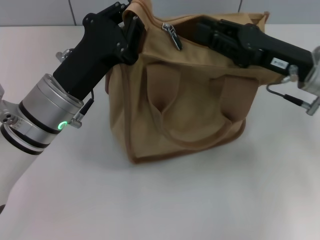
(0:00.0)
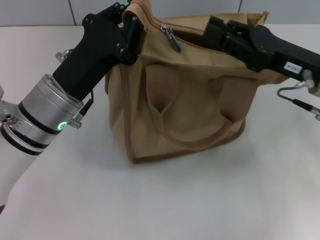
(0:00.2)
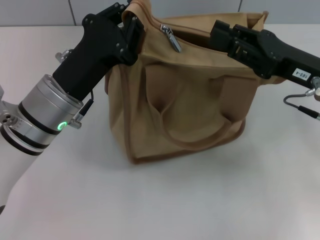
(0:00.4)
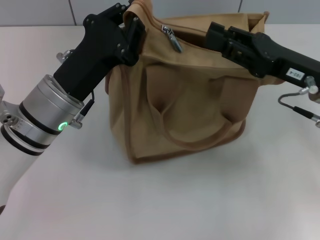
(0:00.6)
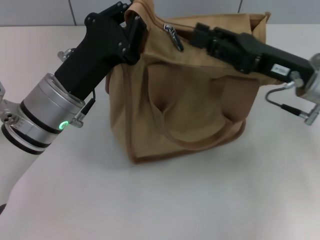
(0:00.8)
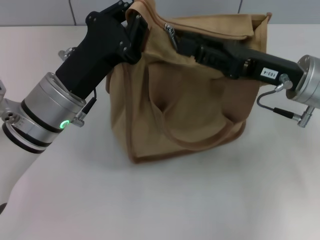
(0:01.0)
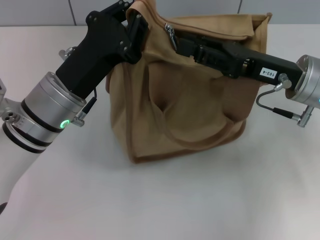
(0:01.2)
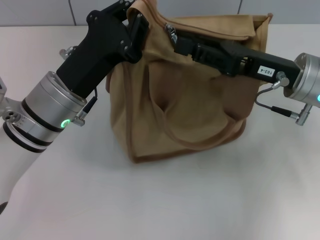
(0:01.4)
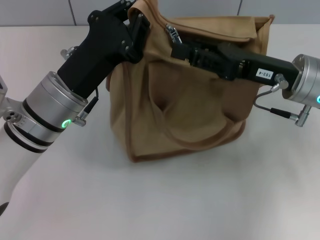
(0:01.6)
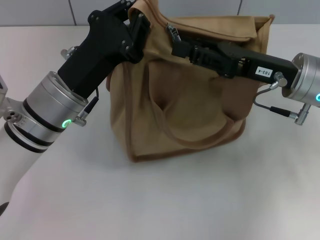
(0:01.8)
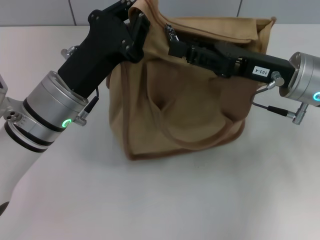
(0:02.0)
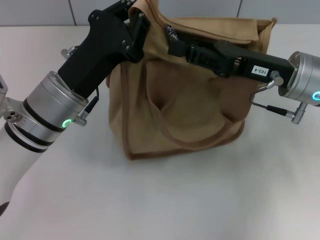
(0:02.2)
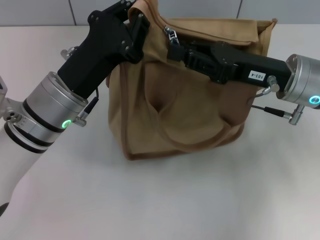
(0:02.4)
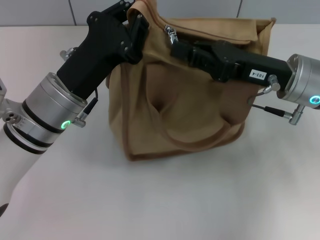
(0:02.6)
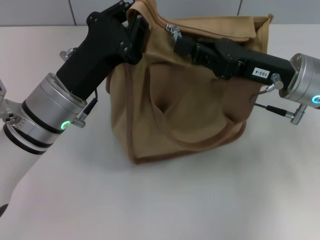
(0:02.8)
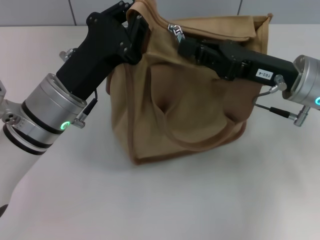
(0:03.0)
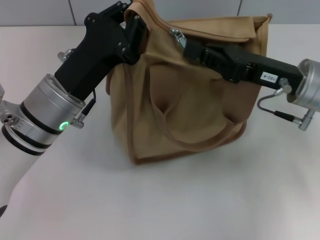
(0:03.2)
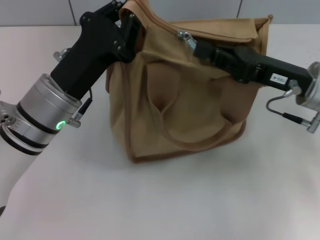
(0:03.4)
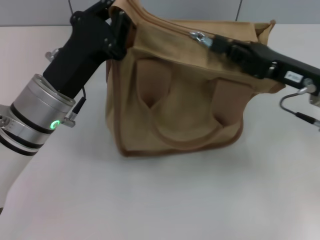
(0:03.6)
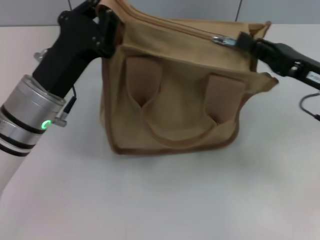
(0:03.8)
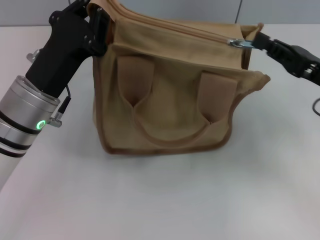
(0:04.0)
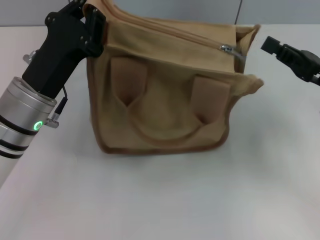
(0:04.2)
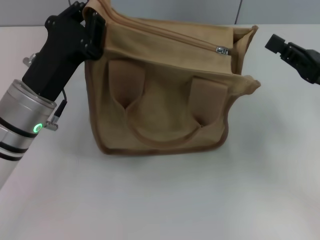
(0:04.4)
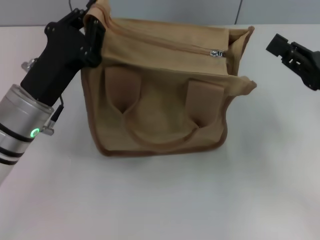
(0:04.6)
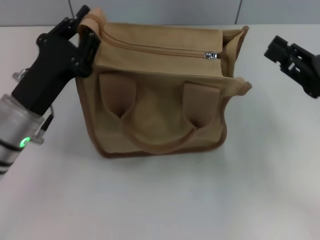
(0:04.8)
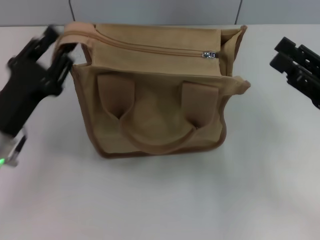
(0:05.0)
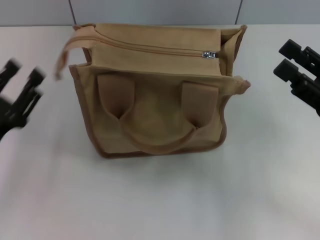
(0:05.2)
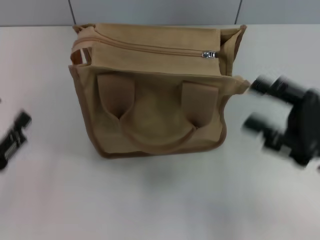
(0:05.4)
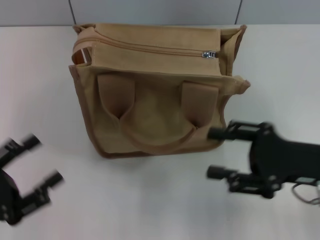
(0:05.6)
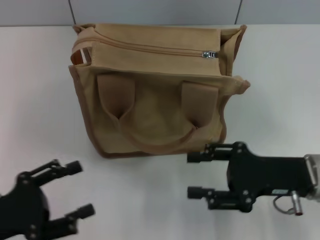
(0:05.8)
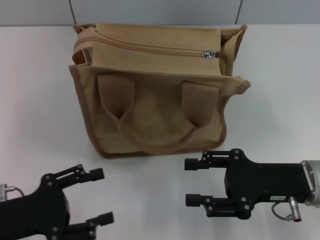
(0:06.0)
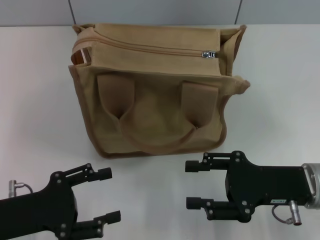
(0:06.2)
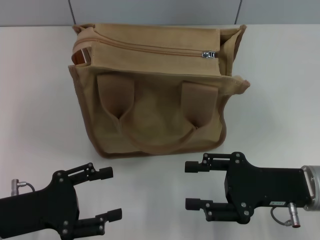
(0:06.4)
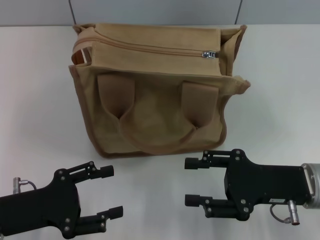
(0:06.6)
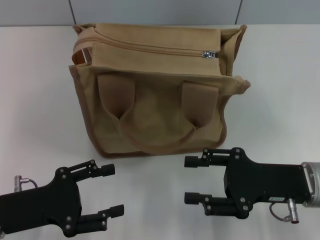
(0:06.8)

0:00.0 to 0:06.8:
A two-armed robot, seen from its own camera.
Step, 0:00.0 to 0:04.2: Pull up the zipper with your right hand.
Step, 0:04.4 to 0:05.0: Grab the zipper with your left hand.
0:00.0 to 0:01.4: There are only small adjustments of the grippers.
0:01.4 to 0:02.8: The right gripper closes its fingers.
0:02.8 to 0:04.0: The right gripper is displaced to the right by about 10 cm.
0:04.0 to 0:05.4: The right gripper heads backward, covering some 5 cm, and opens its fingers, while the left gripper travels to the left, backward and downward by some 20 cm, and opens.
0:05.4 to 0:06.8: The left gripper shifts by about 5 cm. The right gripper moves approximately 5 cm.

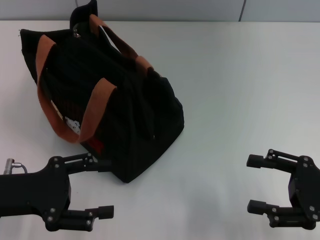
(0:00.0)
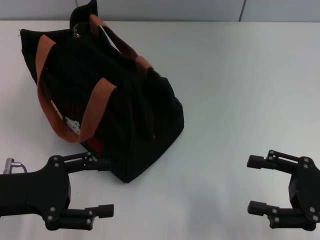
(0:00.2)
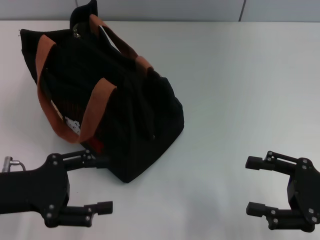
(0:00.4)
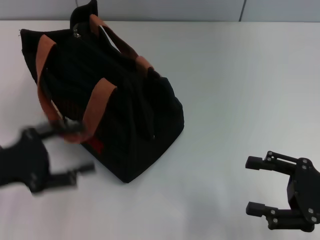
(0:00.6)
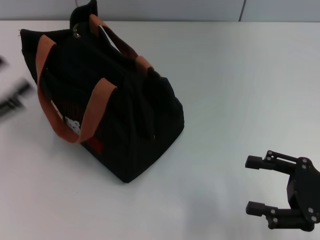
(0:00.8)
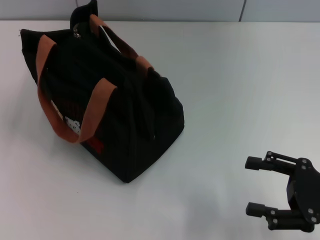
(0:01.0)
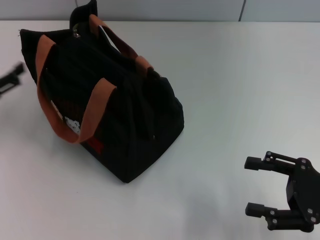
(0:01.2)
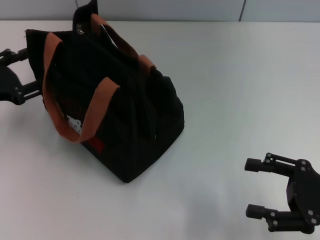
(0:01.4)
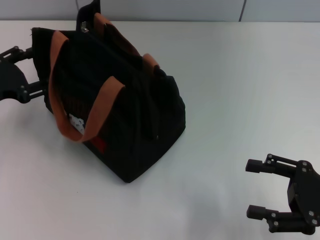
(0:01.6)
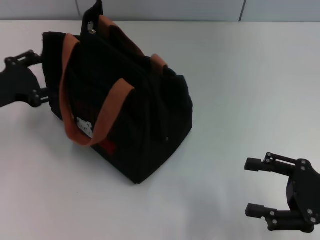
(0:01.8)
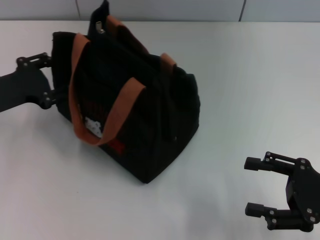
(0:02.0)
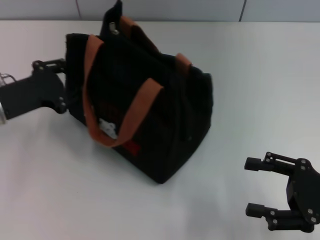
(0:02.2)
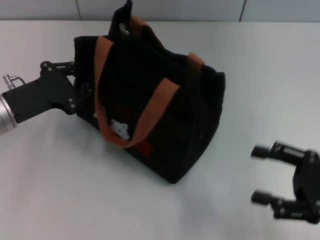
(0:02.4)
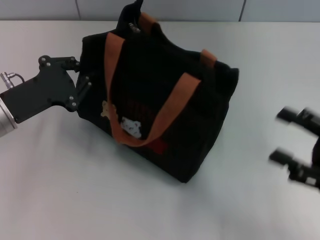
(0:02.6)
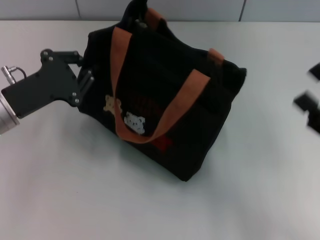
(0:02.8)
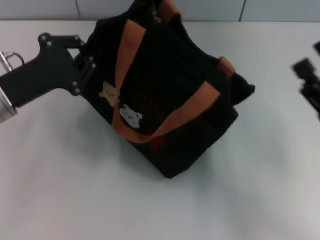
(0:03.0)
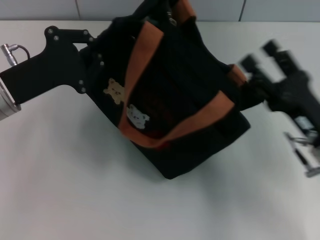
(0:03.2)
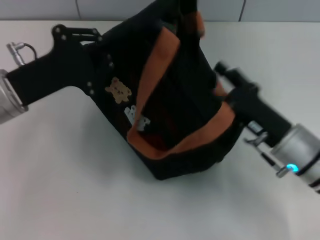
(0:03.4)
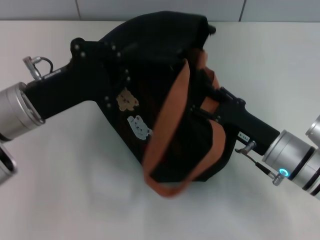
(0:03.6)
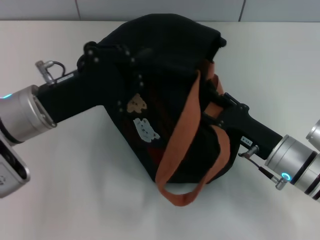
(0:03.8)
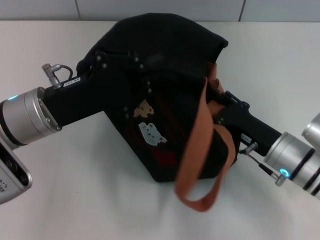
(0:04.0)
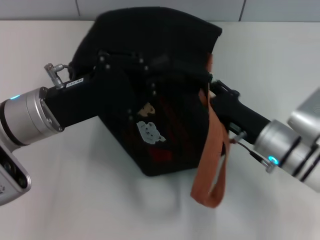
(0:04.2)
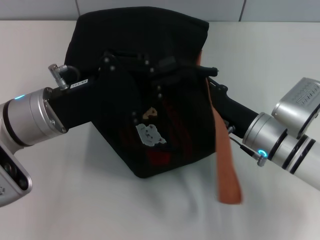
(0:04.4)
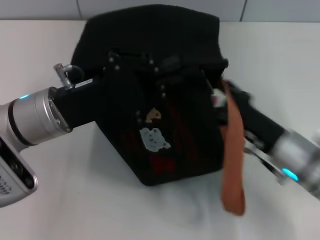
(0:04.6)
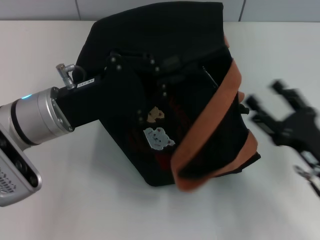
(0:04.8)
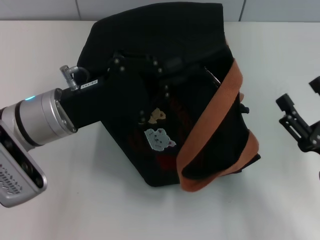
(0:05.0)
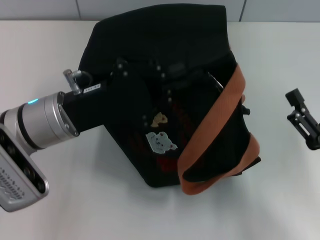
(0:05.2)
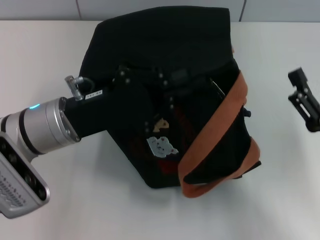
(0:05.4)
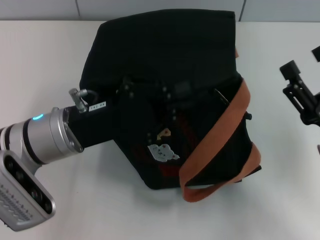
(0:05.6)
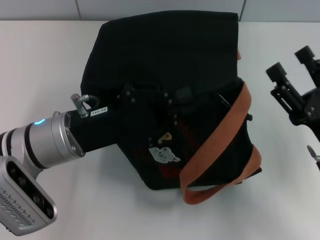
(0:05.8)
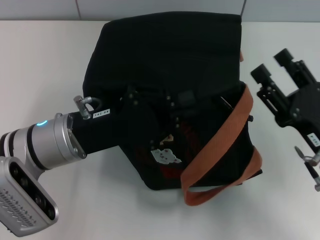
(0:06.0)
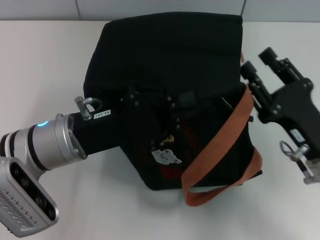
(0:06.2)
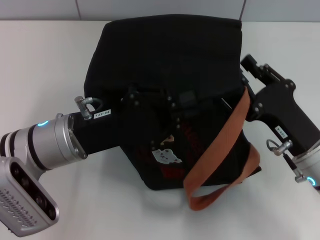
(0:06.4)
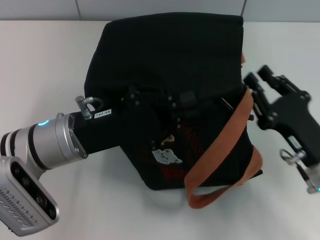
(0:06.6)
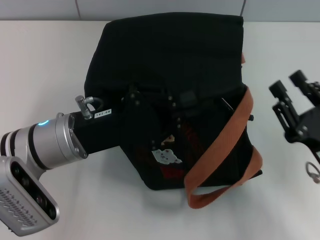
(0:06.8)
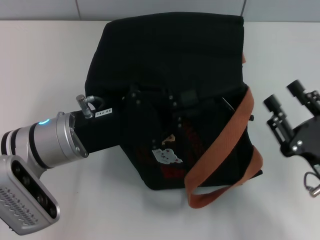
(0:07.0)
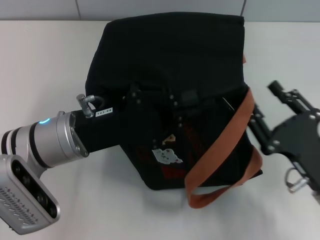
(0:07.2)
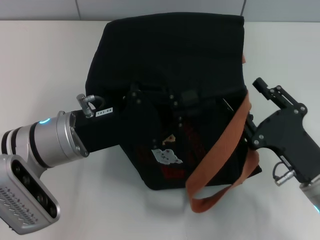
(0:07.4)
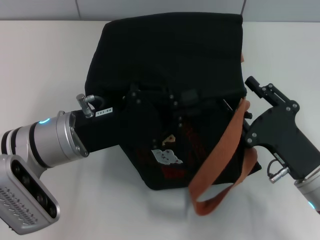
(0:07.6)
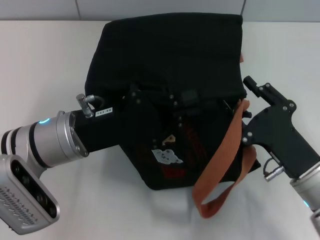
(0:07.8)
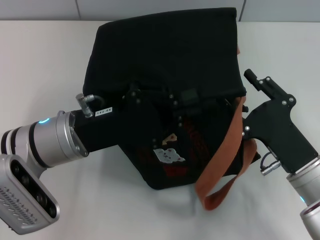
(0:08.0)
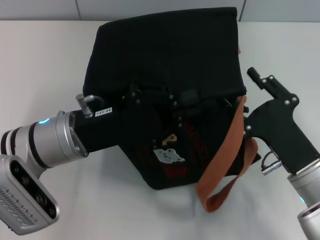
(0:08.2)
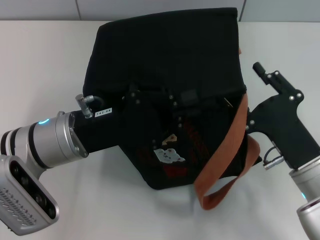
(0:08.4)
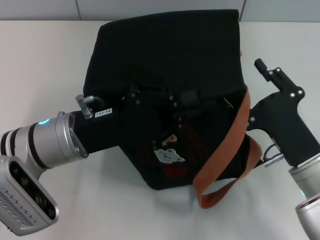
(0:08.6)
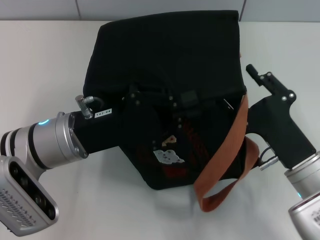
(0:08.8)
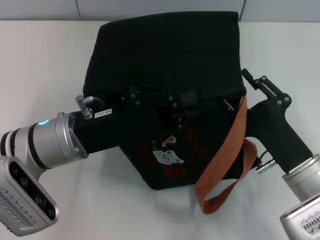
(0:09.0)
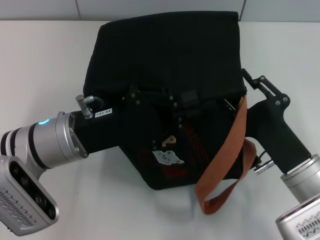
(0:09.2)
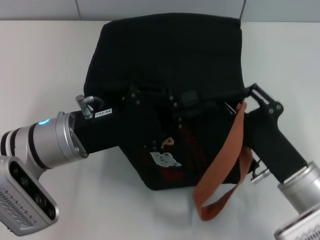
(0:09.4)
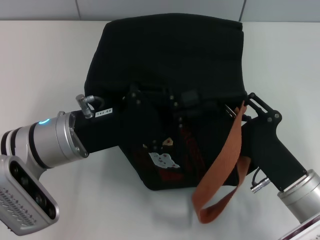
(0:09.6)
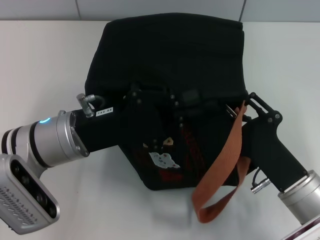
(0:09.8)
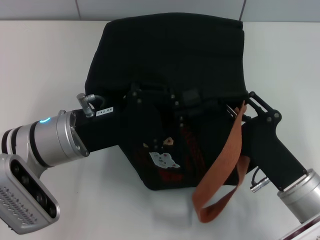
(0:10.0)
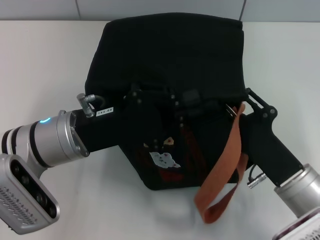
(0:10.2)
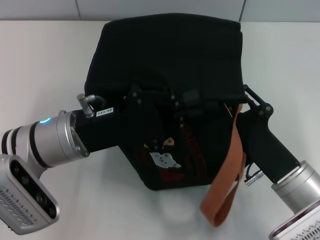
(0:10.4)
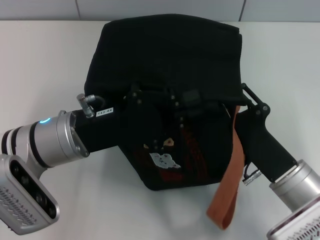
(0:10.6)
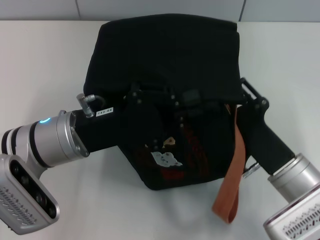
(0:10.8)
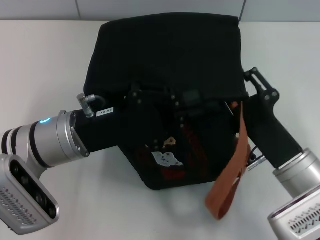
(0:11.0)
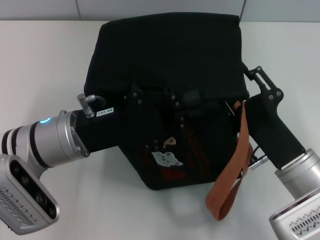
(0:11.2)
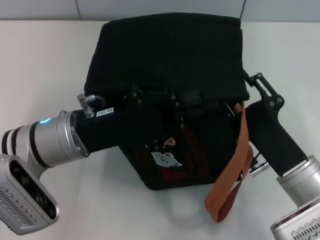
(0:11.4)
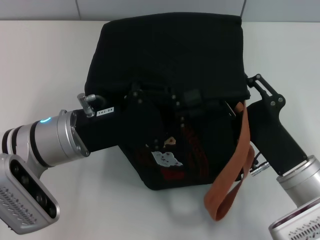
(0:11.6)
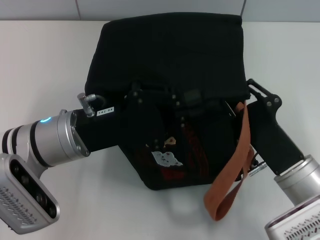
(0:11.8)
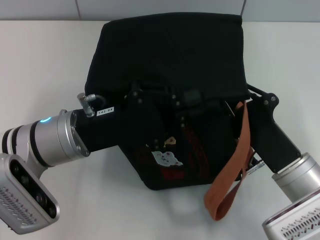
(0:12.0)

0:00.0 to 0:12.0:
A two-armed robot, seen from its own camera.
0:00.0 to 0:01.6: The left gripper heads forward and to the left, covering some 10 cm.
0:01.6 to 0:03.0: The left gripper is displaced to the right by approximately 5 cm, and closes.
0:03.0 to 0:04.4: The right gripper moves to the left and forward, some 15 cm, while the left gripper shifts roughly 5 cm to the right.
0:04.4 to 0:06.0: The right gripper goes some 10 cm backward and to the right.
0:07.6 to 0:09.0: There are only small adjustments of the grippers.
0:09.0 to 0:12.0: The grippers stay close to where they were, moving slightly.

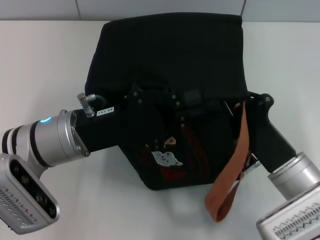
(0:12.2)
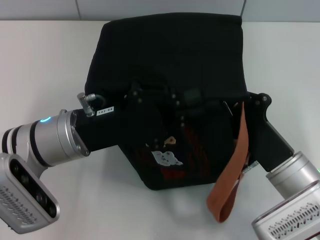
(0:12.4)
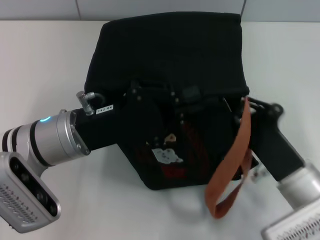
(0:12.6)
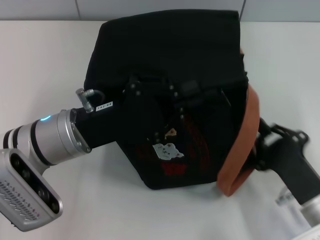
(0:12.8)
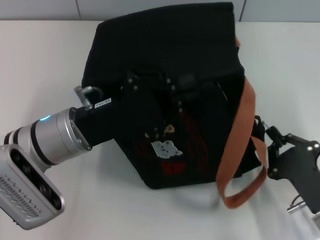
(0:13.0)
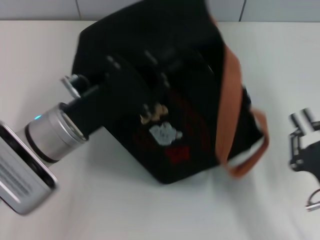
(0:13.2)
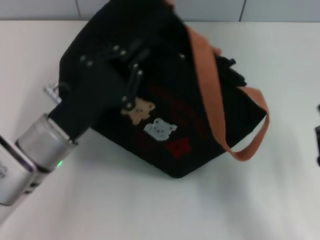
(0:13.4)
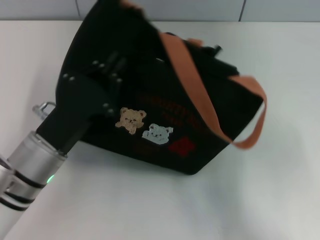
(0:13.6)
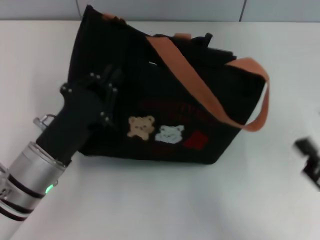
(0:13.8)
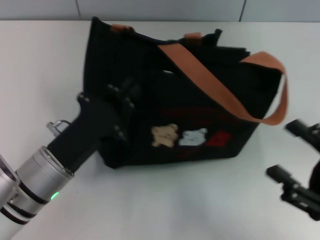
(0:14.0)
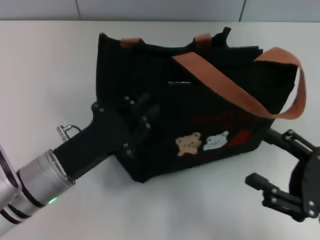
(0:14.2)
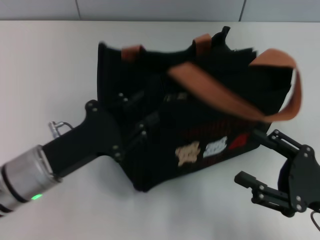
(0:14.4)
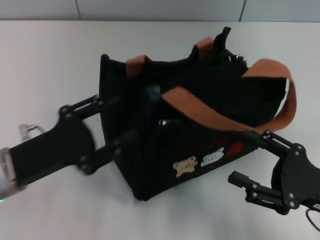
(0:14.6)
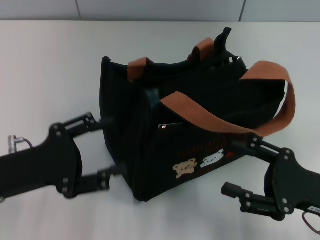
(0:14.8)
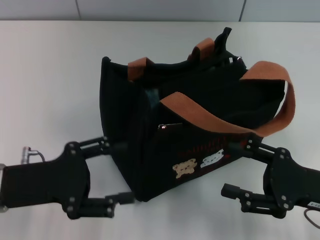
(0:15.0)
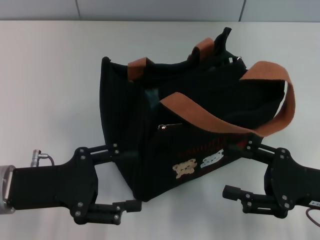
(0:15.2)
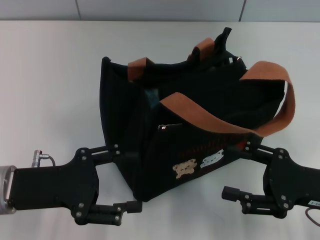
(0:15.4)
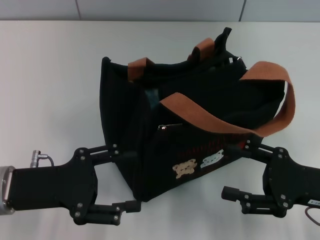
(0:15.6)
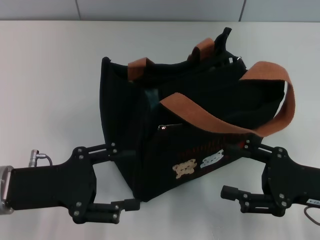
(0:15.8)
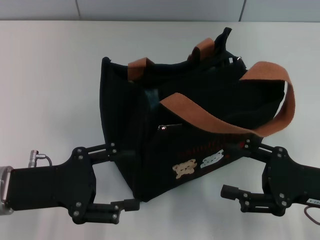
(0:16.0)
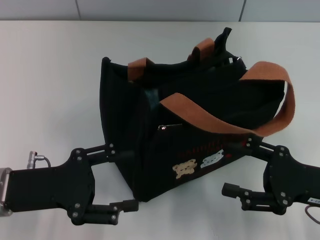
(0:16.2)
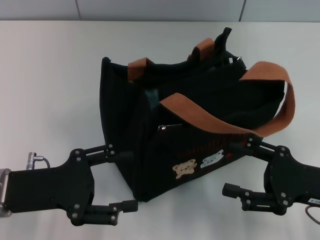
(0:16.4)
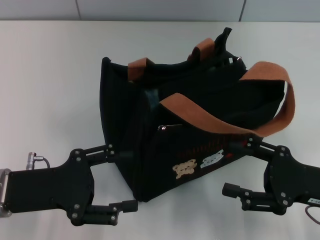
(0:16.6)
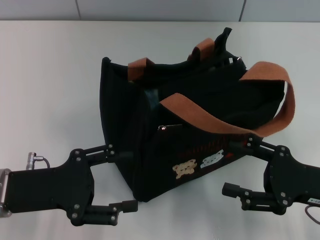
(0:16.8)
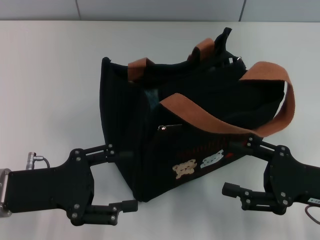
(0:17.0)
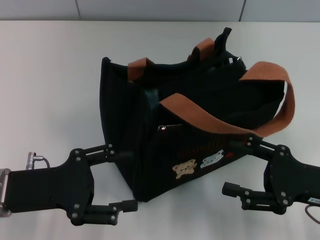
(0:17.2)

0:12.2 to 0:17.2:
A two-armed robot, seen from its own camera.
Step, 0:13.2 to 0:14.4: Grab the bag with your left hand.
0:12.2 to 0:13.8: The right gripper moves to the right and backward, roughly 15 cm, and opens up. Meanwhile the left gripper shifts by approximately 5 cm.
0:13.8 to 0:15.6: The left gripper travels to the left by some 5 cm, and opens up. Meanwhile the right gripper shifts about 5 cm forward.
0:15.6 to 0:17.2: Both grippers stay about where they are.
